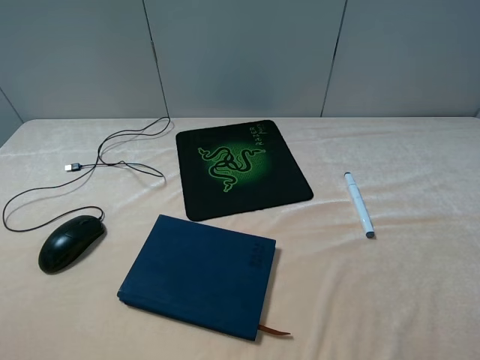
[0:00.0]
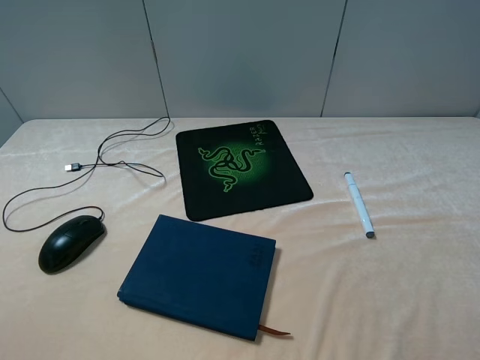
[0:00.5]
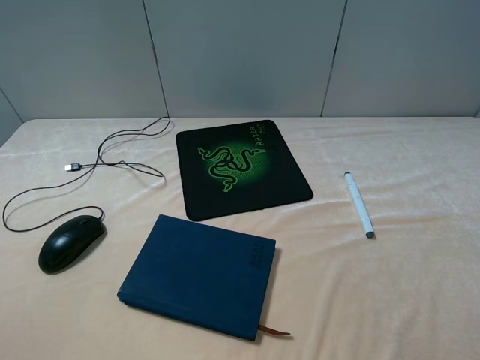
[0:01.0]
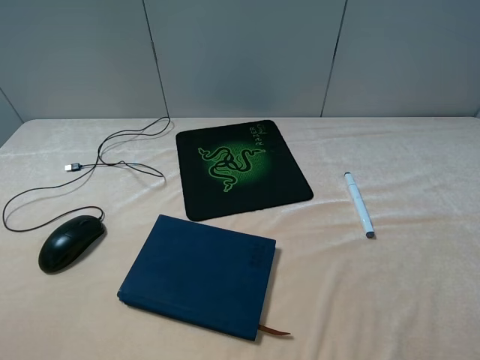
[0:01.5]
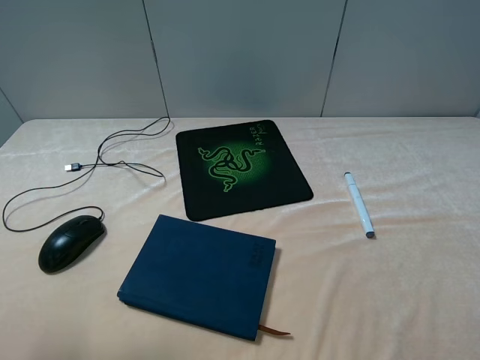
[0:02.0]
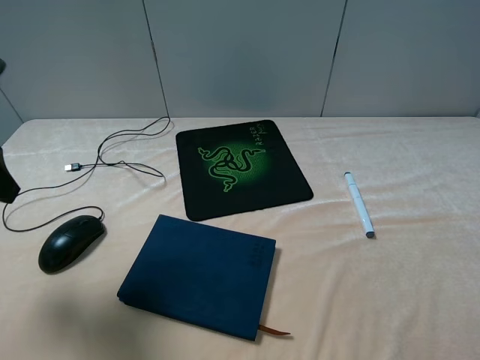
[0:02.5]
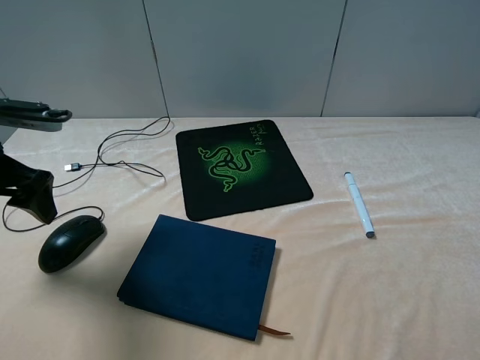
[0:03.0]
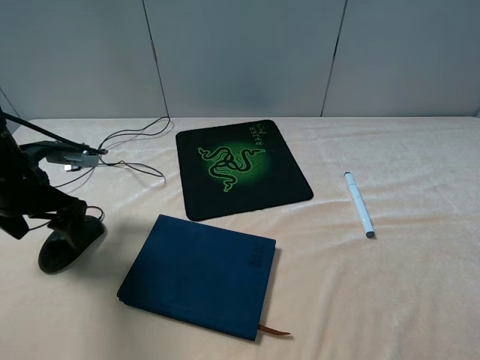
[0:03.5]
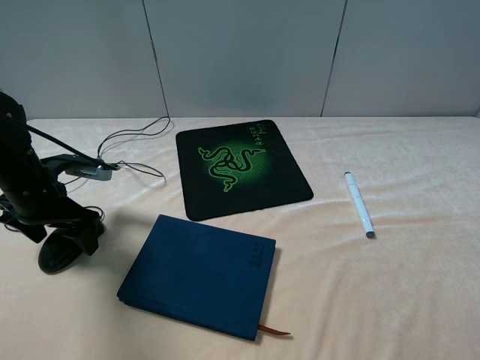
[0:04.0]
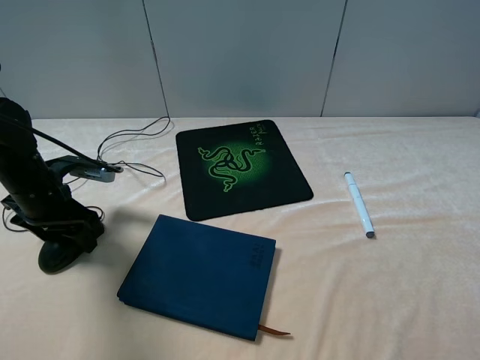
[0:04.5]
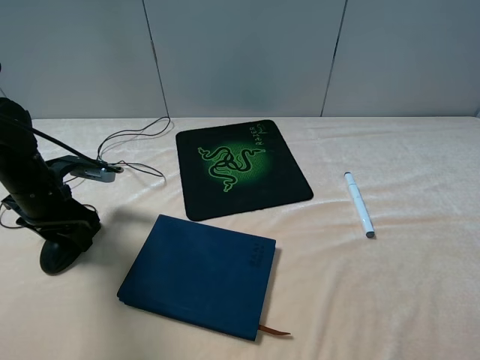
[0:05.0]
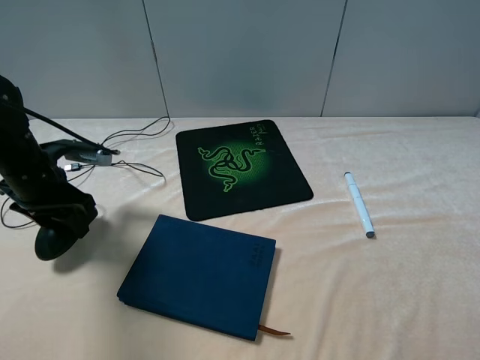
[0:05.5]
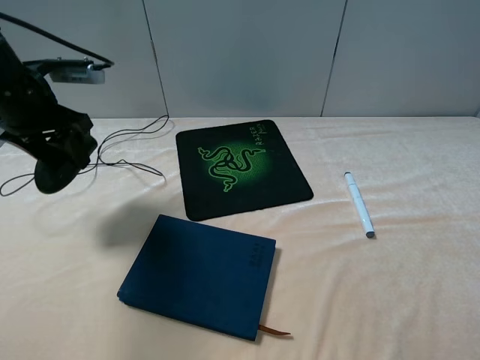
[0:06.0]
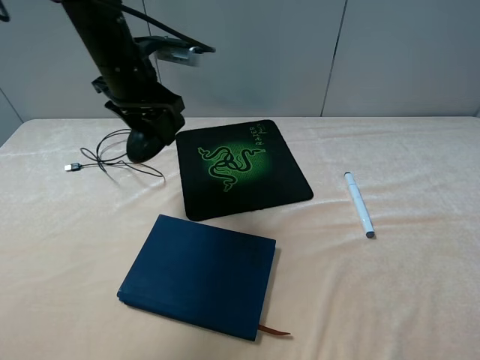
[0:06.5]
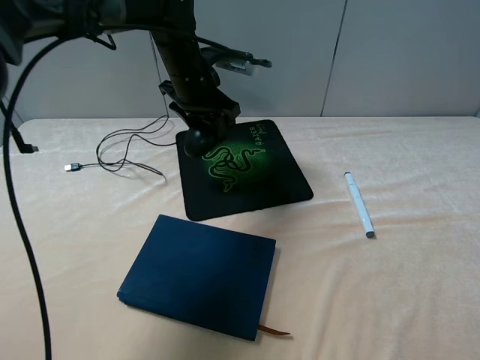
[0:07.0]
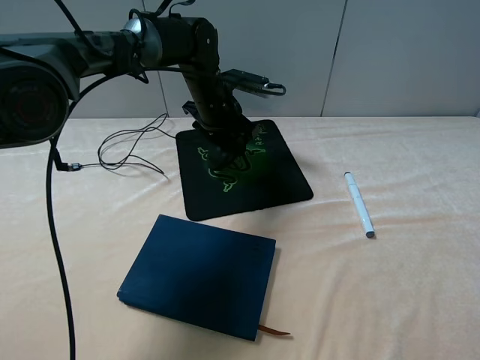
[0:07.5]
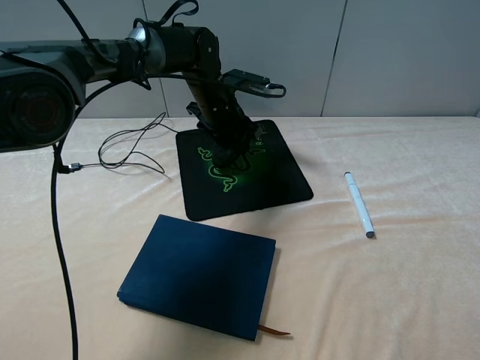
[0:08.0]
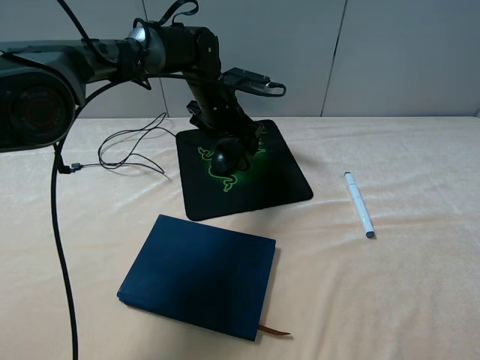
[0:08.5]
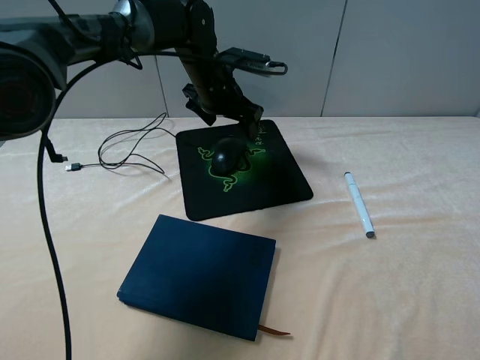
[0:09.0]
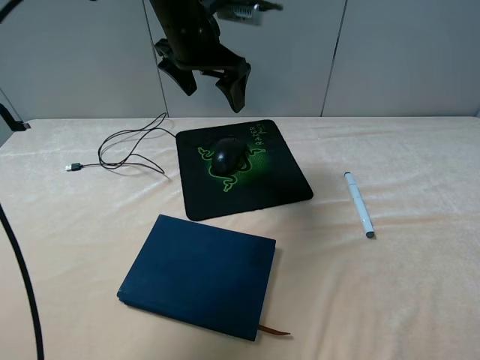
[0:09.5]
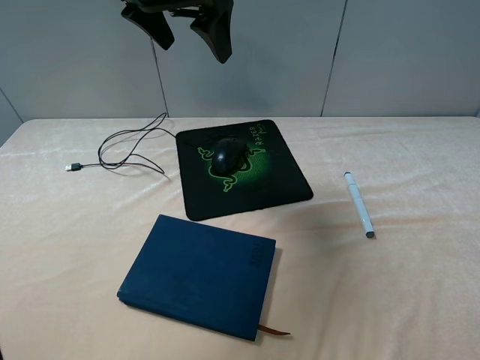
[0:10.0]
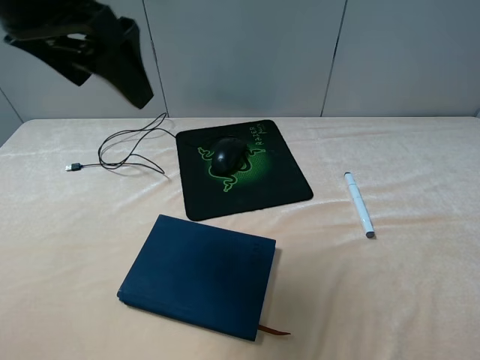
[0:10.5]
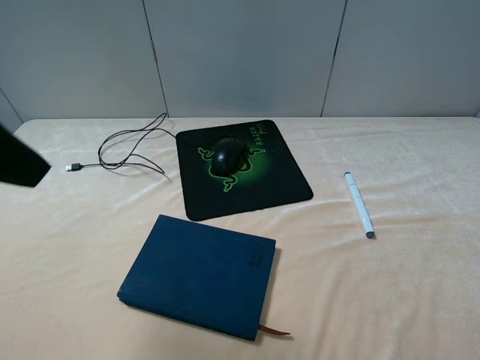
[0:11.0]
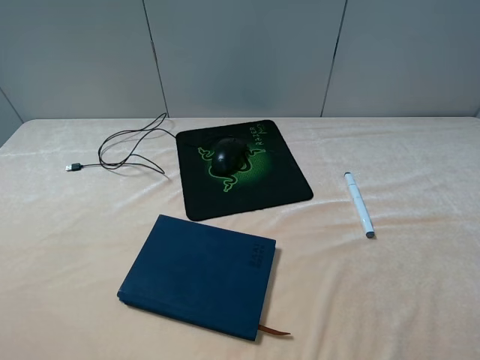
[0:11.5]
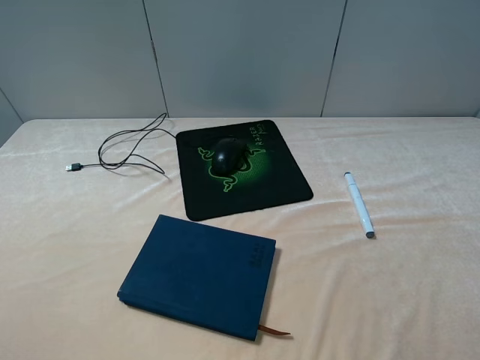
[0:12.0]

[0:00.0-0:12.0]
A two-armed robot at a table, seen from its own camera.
Step, 0:00.0 to 0:05.0: Grasp the mouse with the left gripper.
Step, 0:05.5 to 0:08.5: Place the mouse on the mouse pad with the left gripper.
0:00.0 to 0:02.0: The left gripper travels forward and upward by about 15 cm.
0:02.0 to 0:04.0: The left gripper is displaced downward and forward by roughly 30 cm.
0:04.0 to 0:06.0: The left gripper shifts about 15 cm upward, and closes.
0:06.0 to 0:08.0: The left gripper goes some 30 cm to the right, forward and downward.
0:08.0 to 0:10.0: The left gripper is displaced upward and backward by about 25 cm, and opens.
0:10.0 to 0:12.0: The left gripper is displaced backward and to the left by approximately 40 cm.

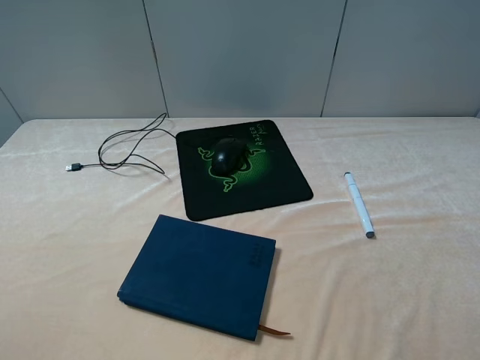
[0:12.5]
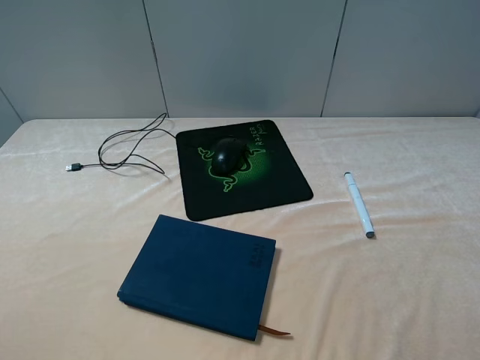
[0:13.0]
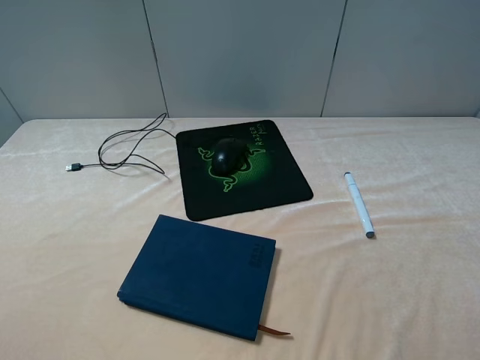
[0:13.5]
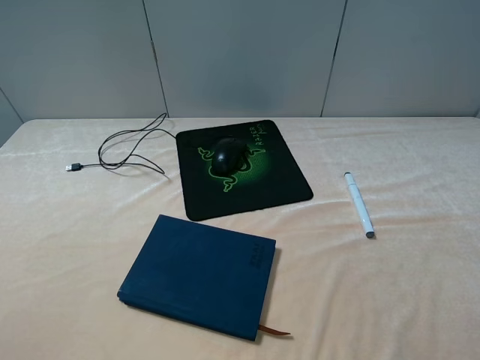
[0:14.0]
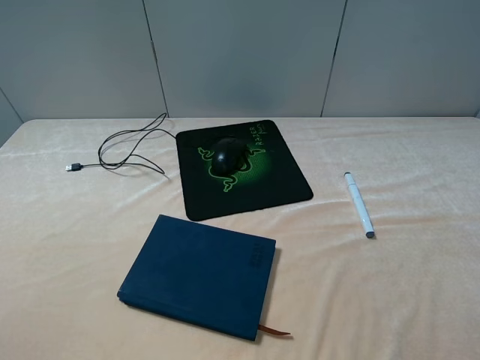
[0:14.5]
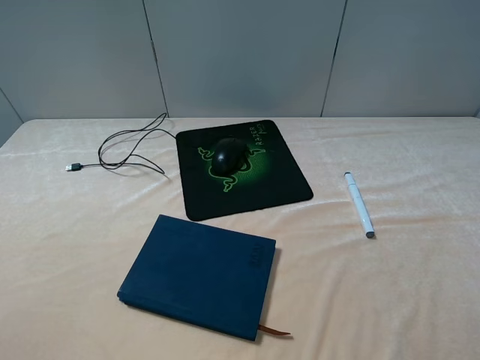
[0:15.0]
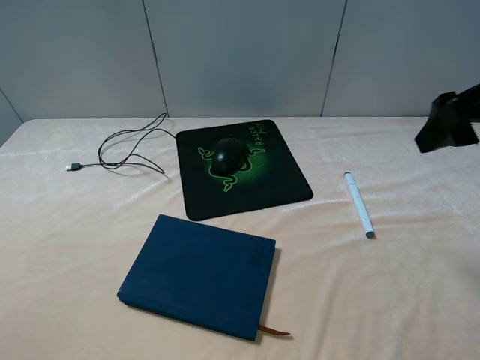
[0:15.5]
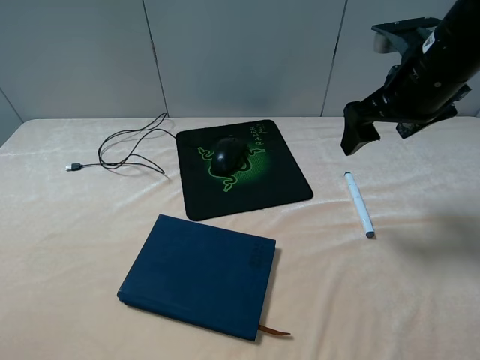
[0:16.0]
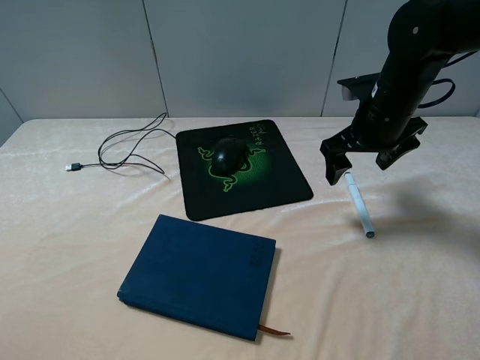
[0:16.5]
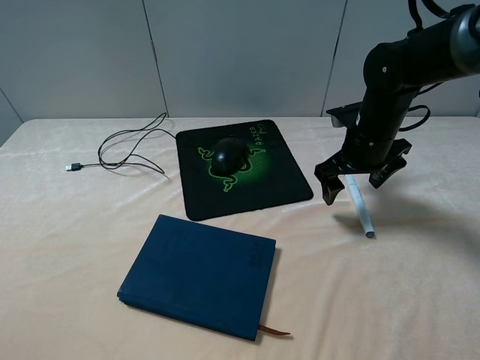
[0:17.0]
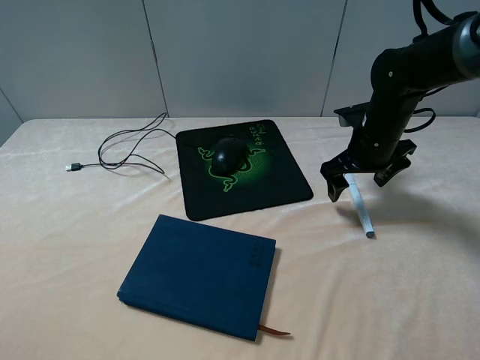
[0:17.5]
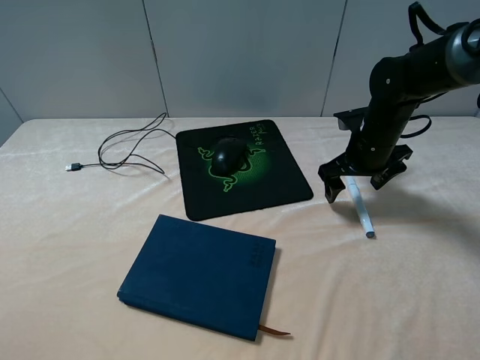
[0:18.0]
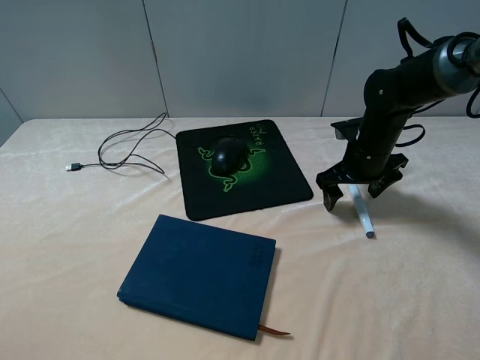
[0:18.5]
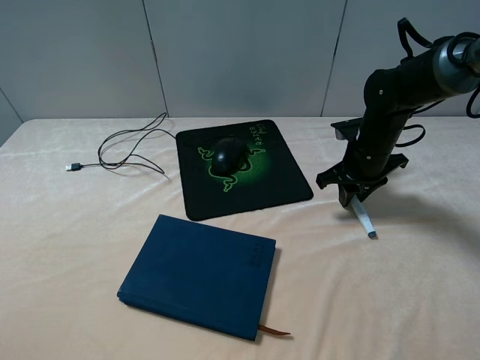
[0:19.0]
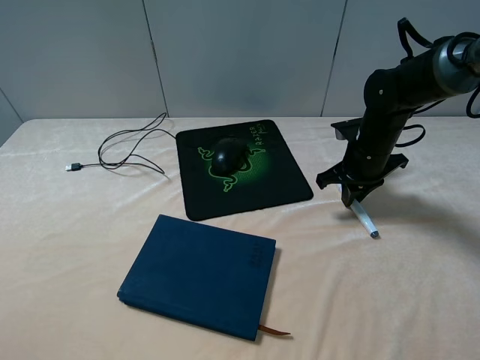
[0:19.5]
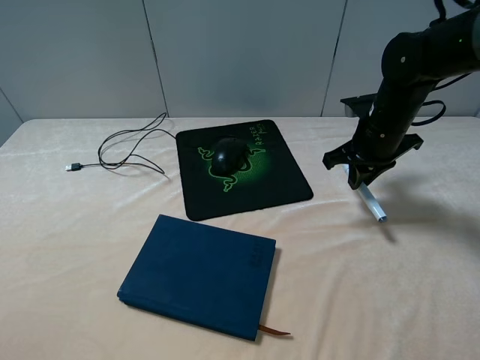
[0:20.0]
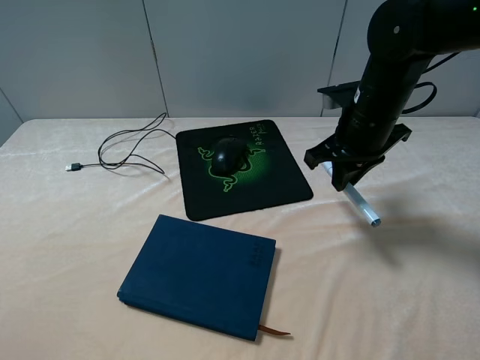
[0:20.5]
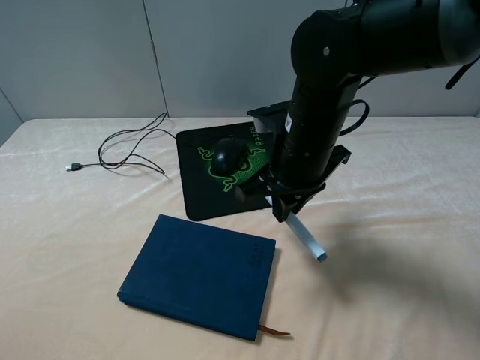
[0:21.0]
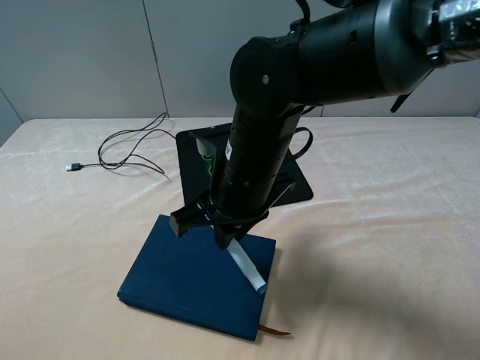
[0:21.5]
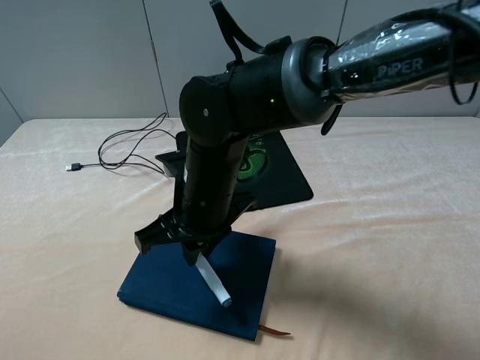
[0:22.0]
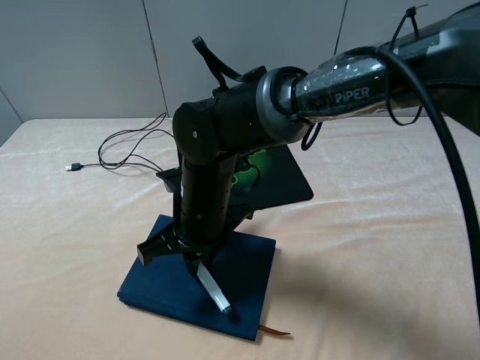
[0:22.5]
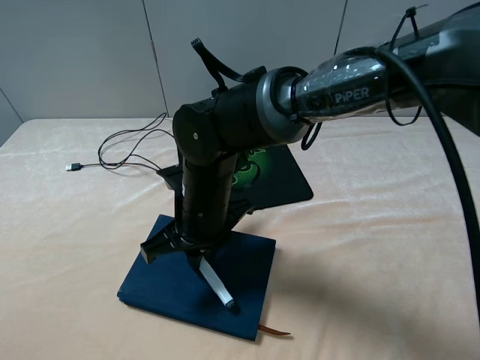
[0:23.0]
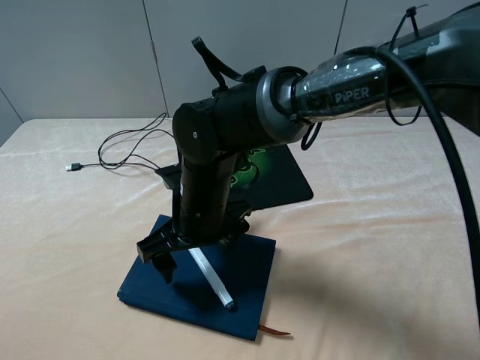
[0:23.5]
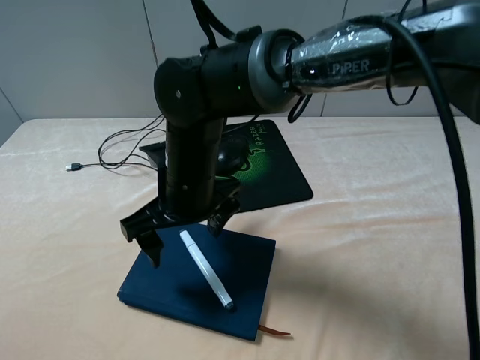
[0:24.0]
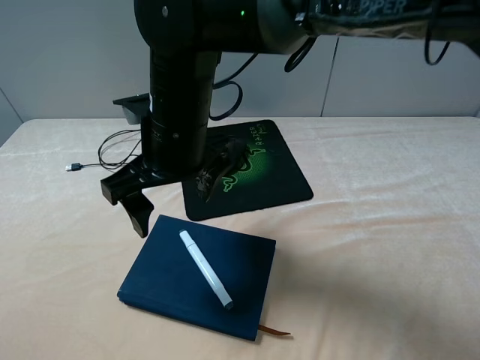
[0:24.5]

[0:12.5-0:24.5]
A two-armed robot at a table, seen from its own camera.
Step, 0:12.5 to 0:19.0: Grasp the marker with the right gripper.
Step, 0:19.5 to 0:23.5: Place the marker on the notebook with the right gripper.
0:12.5 to 0:14.5: Both grippers stay about where they are.
0:14.5 to 0:16.5: The right gripper goes some 35 cm forward.
0:16.5 to 0:18.5: The right gripper goes approximately 10 cm downward.
0:18.5 to 0:20.5: The right gripper moves upward, to the left and backward, approximately 10 cm, and closes its fingers.
0:20.5 to 0:22.5: The right gripper heads to the left and backward, covering approximately 20 cm.
0:22.5 to 0:24.5: The right gripper goes about 10 cm upward, and opens its fingers.

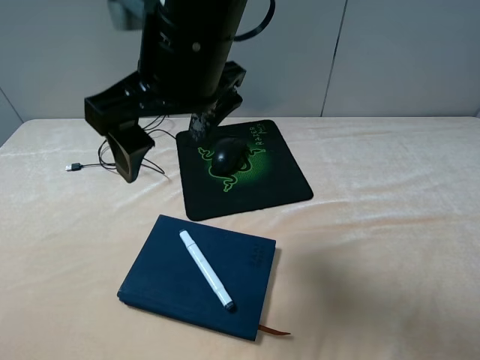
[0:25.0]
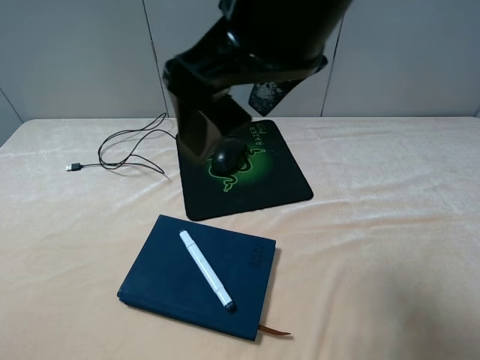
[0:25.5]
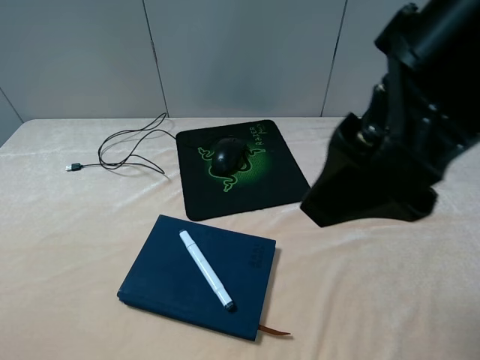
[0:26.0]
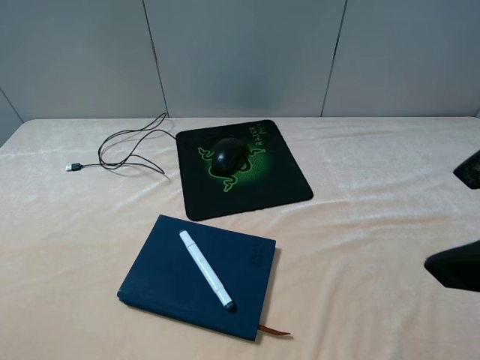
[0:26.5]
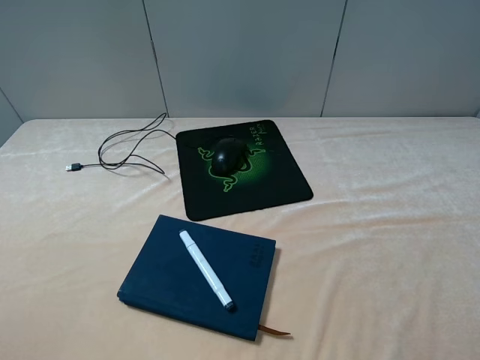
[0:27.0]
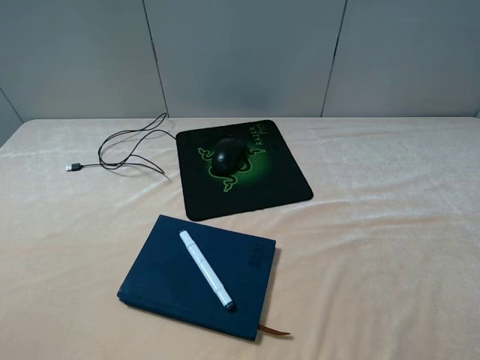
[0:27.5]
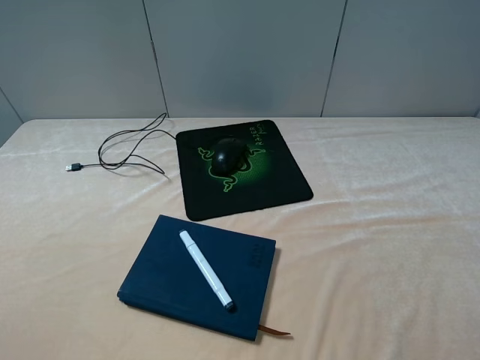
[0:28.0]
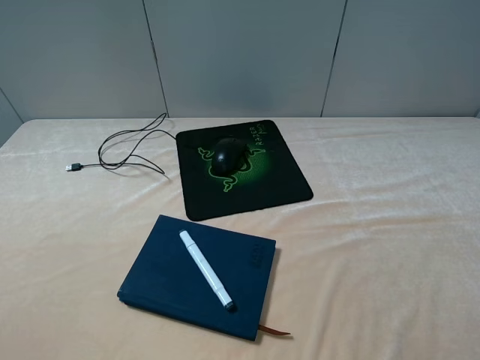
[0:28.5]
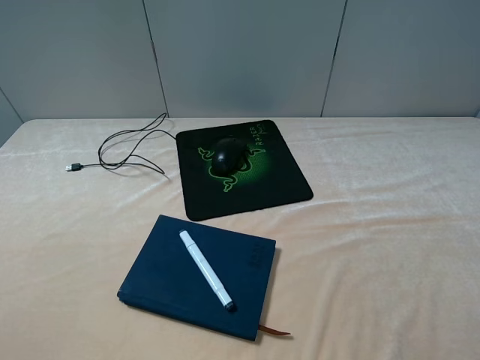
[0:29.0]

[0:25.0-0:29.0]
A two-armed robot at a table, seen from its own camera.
0:25.0 to 0:27.0: The right gripper goes about 35 cm to the right and backward.
